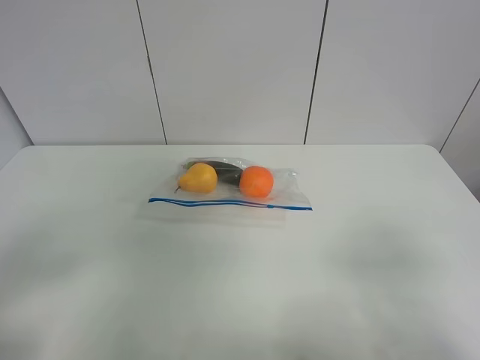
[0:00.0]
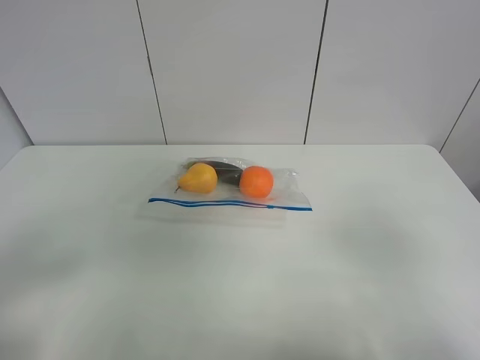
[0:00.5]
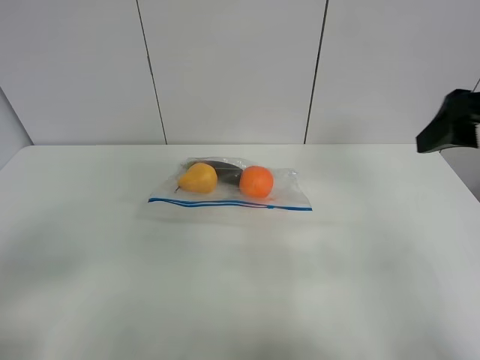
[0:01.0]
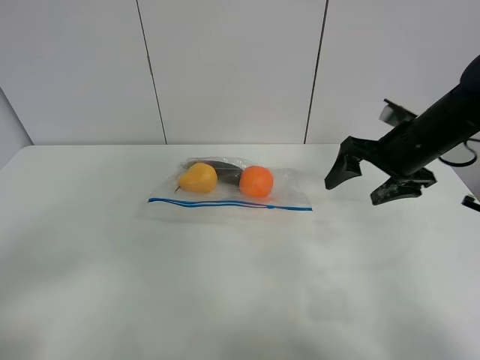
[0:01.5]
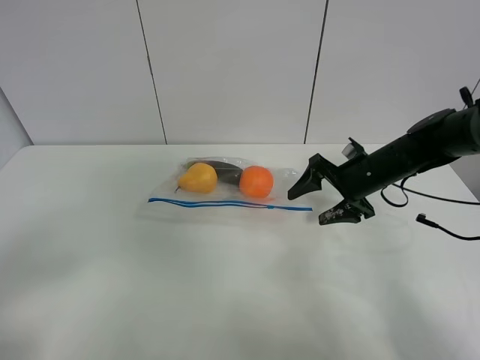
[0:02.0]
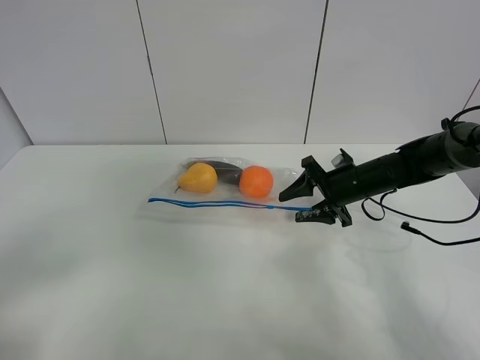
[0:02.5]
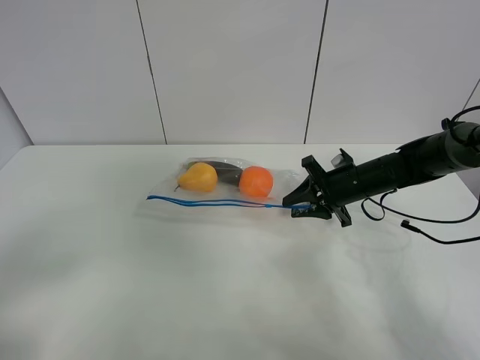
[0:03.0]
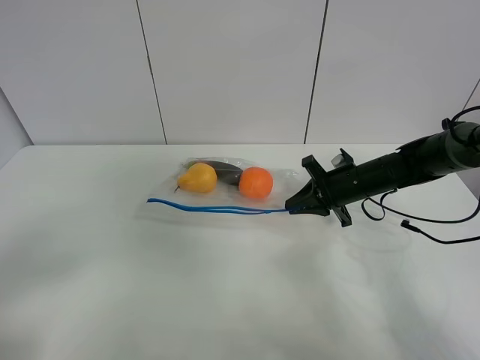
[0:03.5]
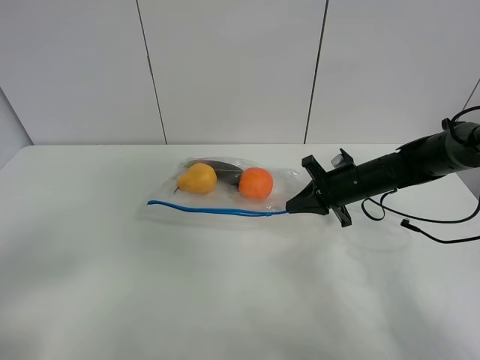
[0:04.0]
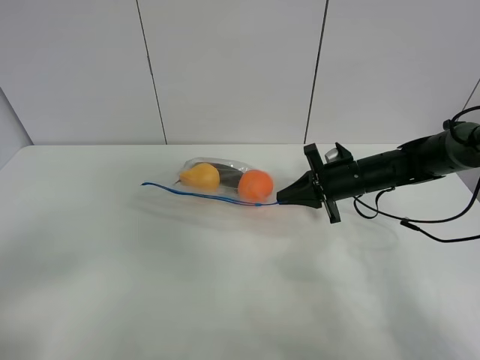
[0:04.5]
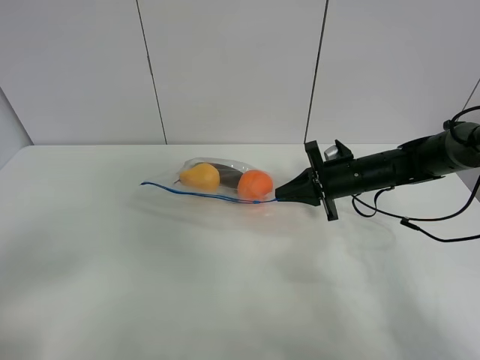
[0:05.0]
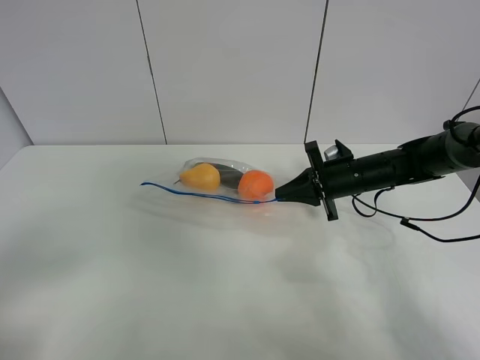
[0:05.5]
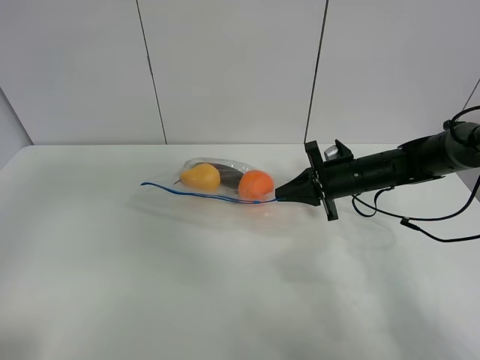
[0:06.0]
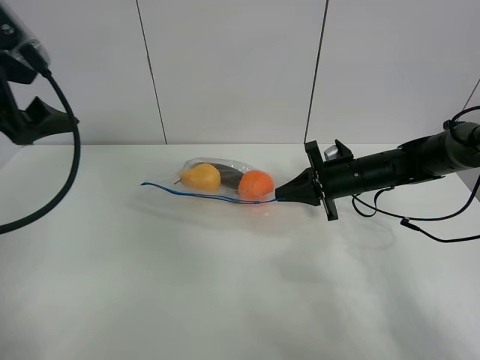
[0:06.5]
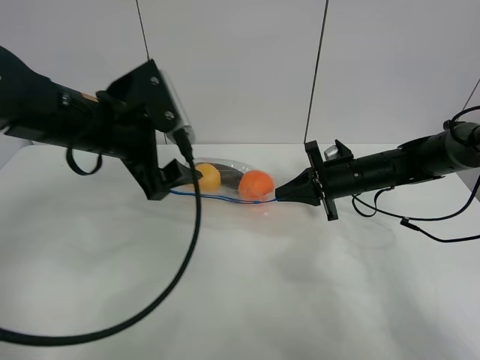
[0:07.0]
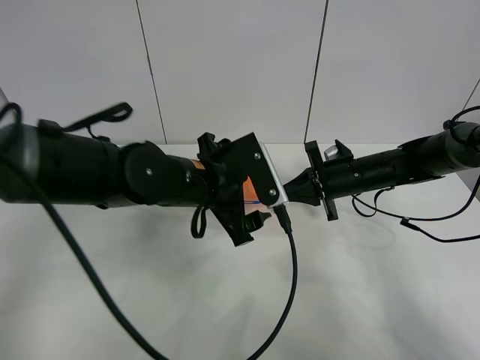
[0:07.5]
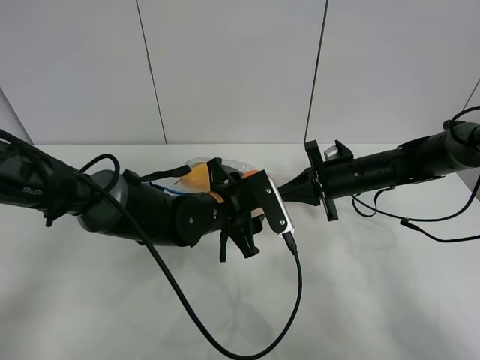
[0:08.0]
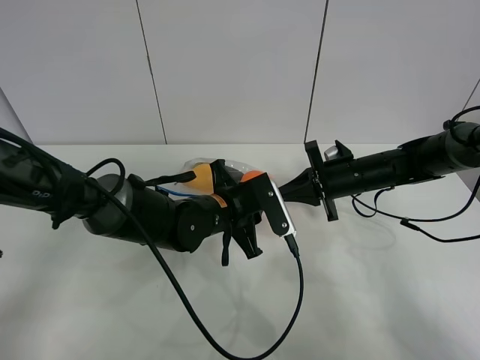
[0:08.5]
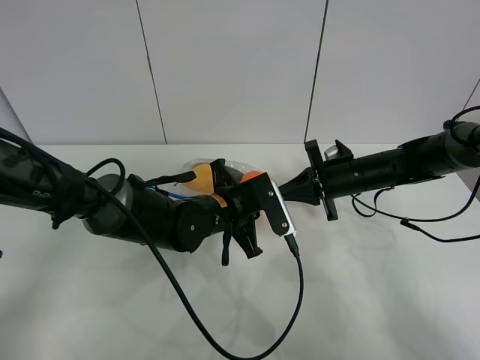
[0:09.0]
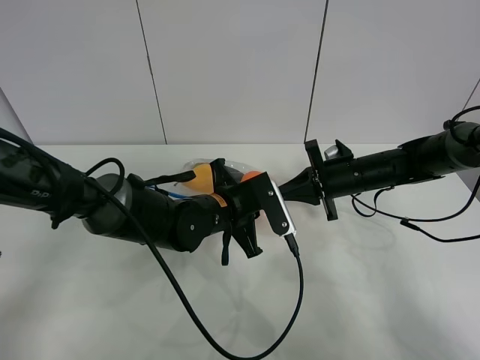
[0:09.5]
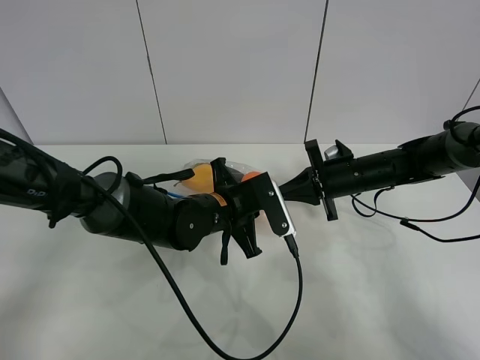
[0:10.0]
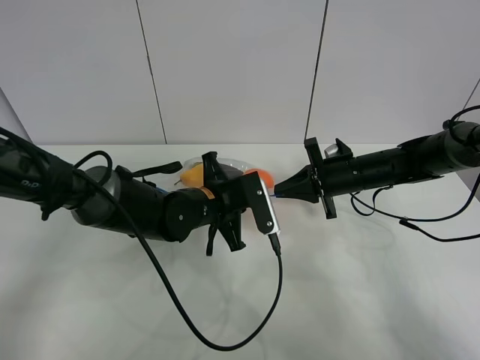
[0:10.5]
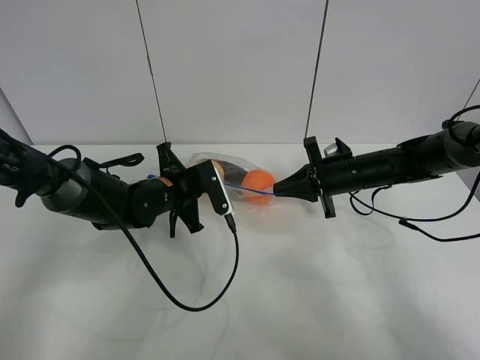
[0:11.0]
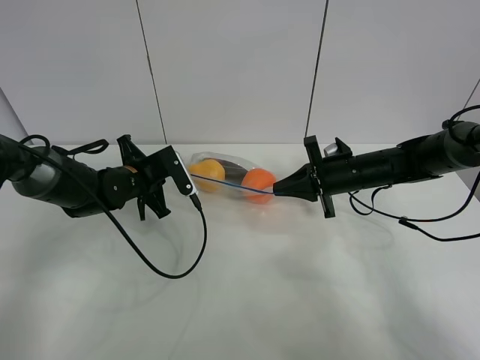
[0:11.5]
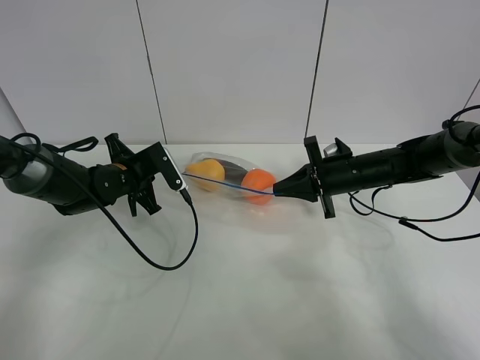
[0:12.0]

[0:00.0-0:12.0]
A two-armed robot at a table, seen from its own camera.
Step, 0:00.0 to 0:03.5: Grasp the fruit bag with right gripper.
Step, 0:04.0 to 0:04.5: Lift the fruit bag with your right gripper.
0:00.0 to 0:02.0: The right gripper is displaced forward by roughly 35 cm.
0:02.0 to 0:04.0: The right gripper closes up.
0:04.0 to 0:06.0: The left gripper moves forward and upward, about 15 cm.
0:06.0 to 0:08.0: The left gripper goes about 40 cm to the right, downward and forward, and closes.
0:08.0 to 0:10.0: The left gripper closes up.
0:10.0 to 0:12.0: The left gripper travels to the left and forward by some 20 cm.

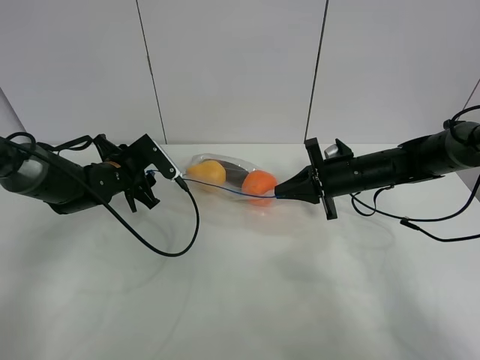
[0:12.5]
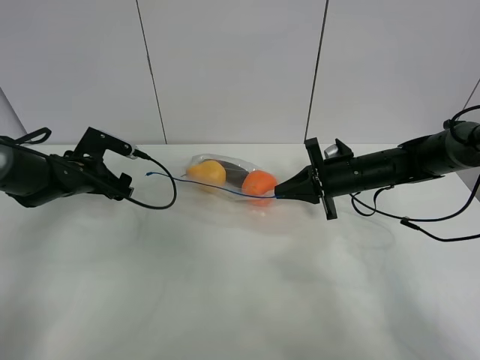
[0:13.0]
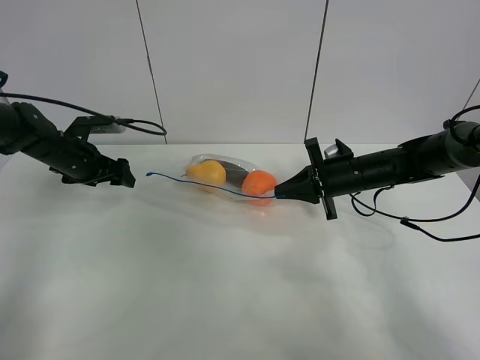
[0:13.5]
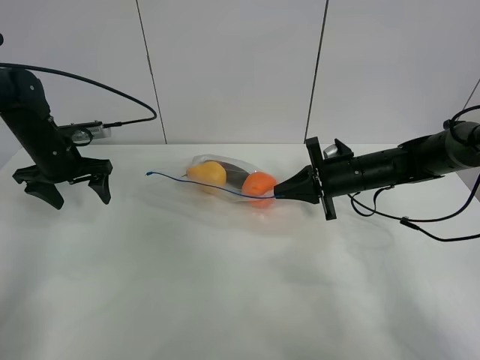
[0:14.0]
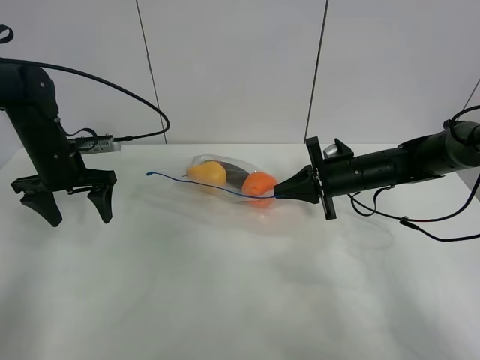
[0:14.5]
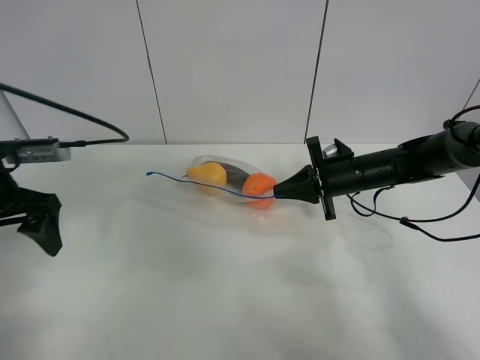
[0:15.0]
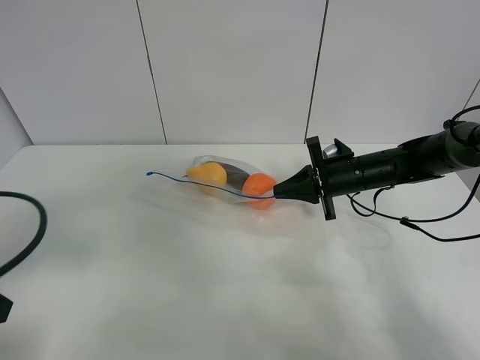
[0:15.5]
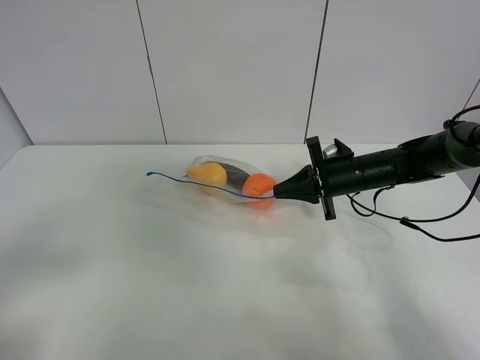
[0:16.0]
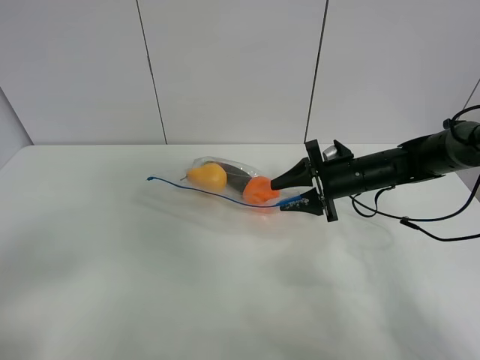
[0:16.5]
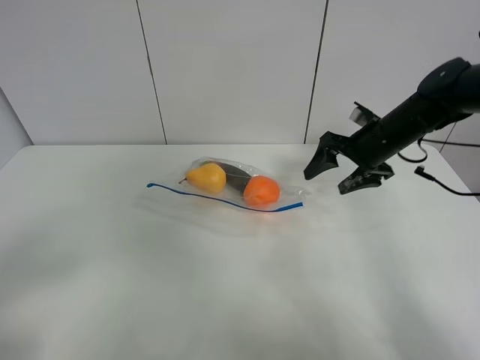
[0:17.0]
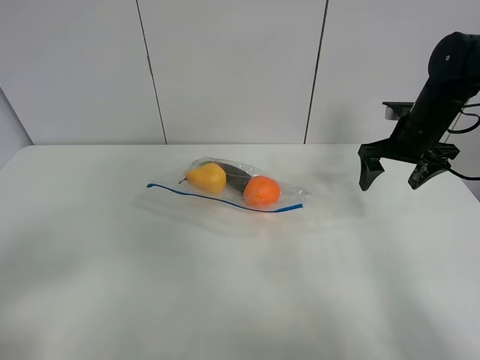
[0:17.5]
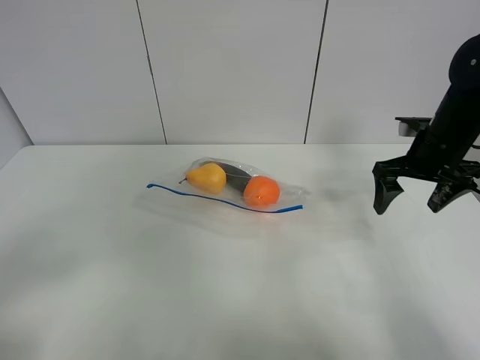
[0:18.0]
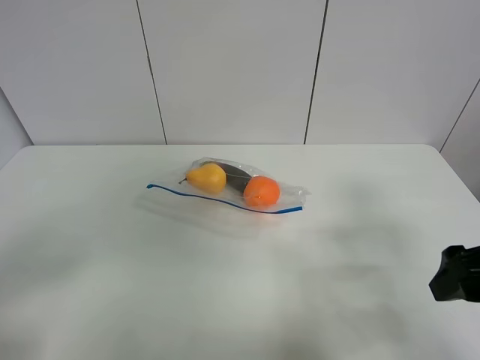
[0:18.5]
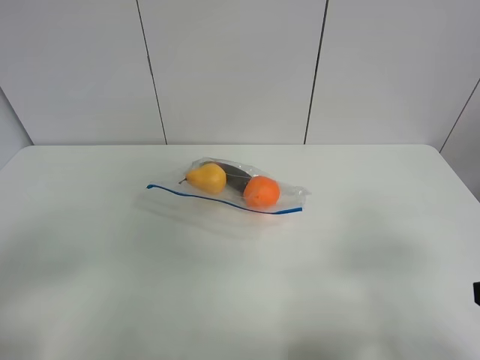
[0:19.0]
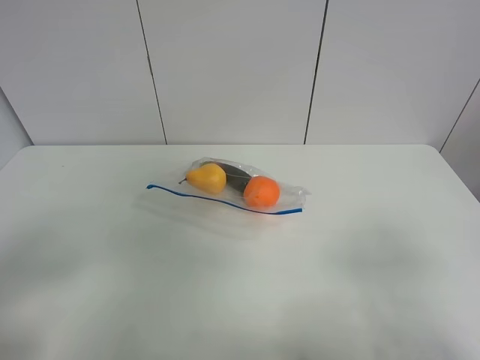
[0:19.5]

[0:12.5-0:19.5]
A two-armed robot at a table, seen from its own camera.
0:12.5 to 0:14.5: The left gripper moves to the left and upward, about 10 cm.
0:14.5 to 0:16.0: The left gripper shifts about 35 cm backward.
0:16.0 to 0:17.5: The right gripper is displaced to the right and upward by roughly 10 cm, and opens its fingers.
0:17.5 to 0:19.5: The right gripper moves backward, some 40 cm.

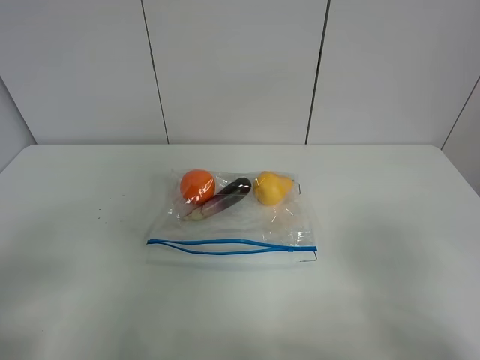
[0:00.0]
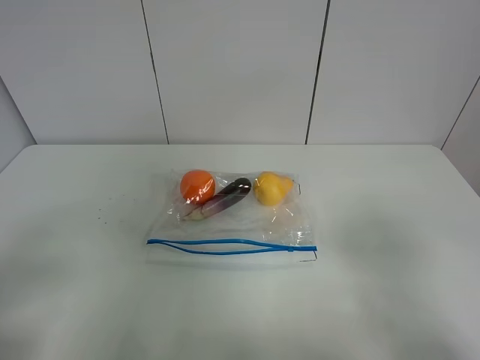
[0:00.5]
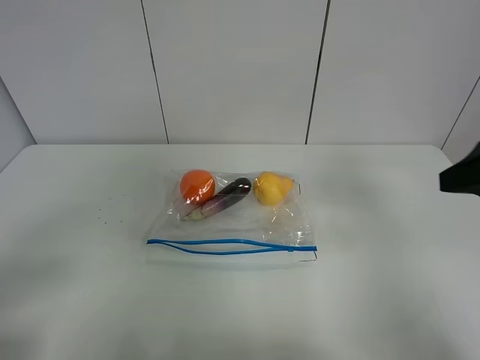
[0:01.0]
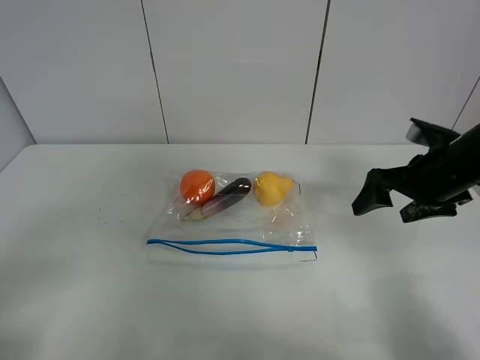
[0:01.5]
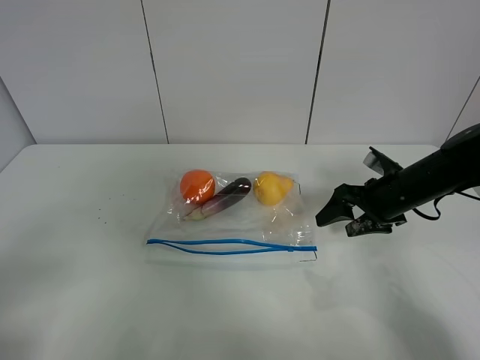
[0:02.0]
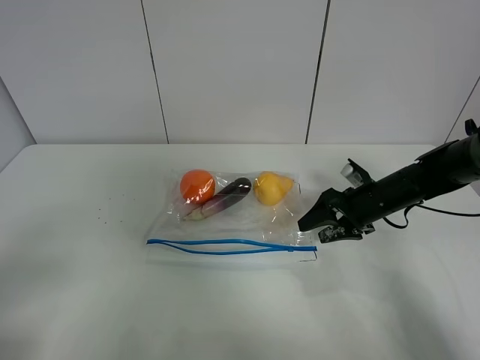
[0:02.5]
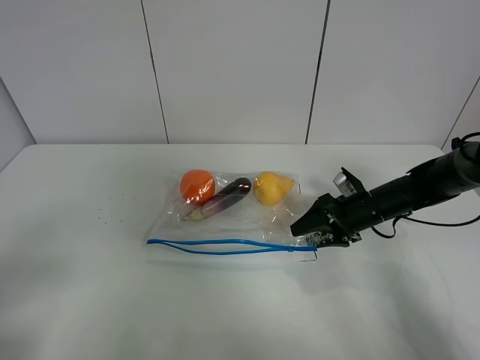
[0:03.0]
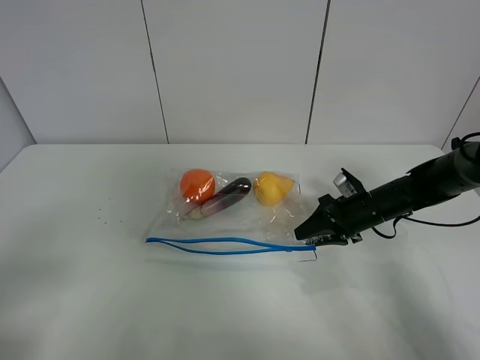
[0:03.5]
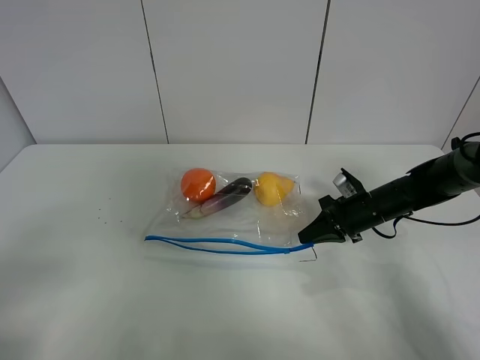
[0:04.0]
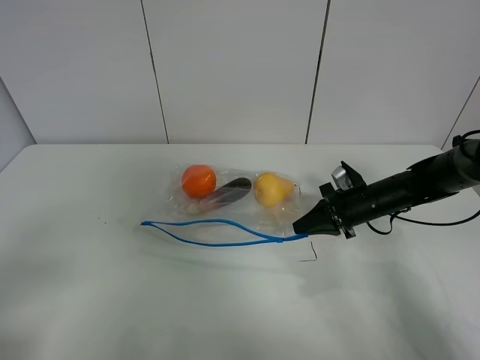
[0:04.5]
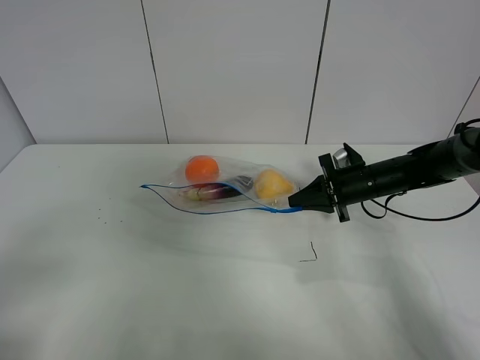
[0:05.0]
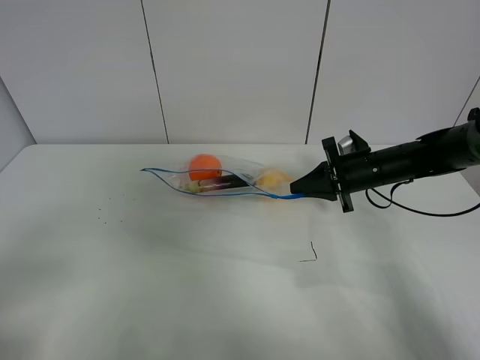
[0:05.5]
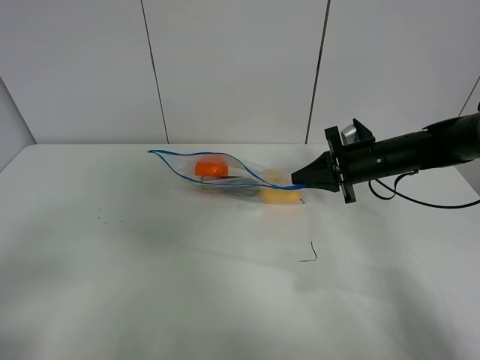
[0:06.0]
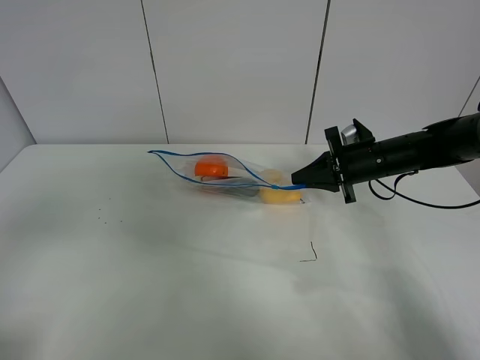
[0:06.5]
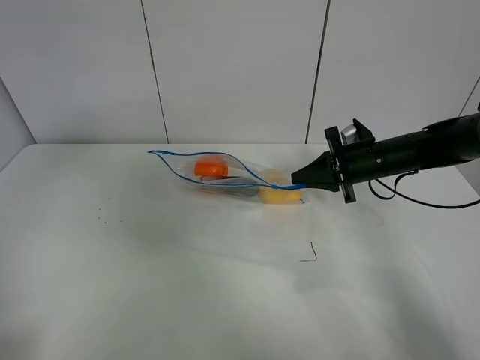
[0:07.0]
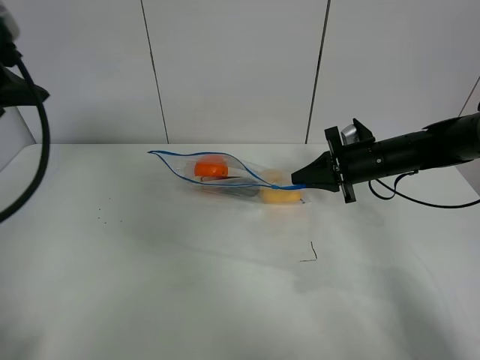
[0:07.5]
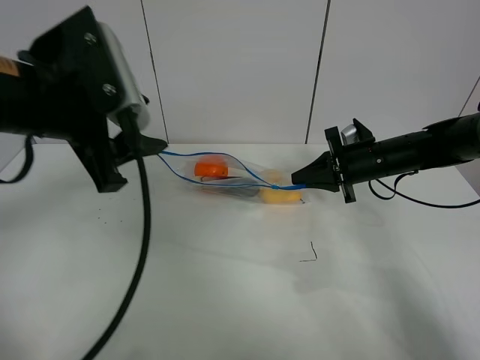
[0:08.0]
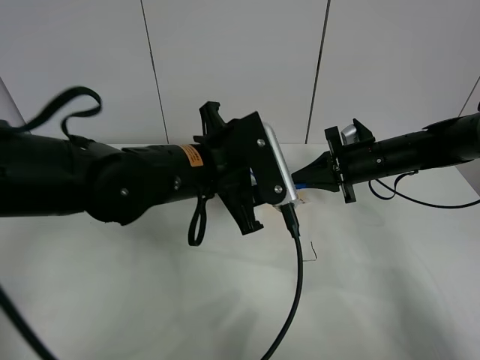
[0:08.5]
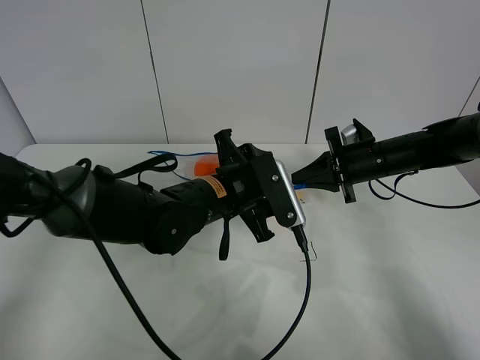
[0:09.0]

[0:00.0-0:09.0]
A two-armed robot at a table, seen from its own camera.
Step, 0:00.0 to 0:04.0: Grasp the fruit bag with right gripper.
Step, 0:04.5 to 0:06.0: Lift the fruit bag with your right gripper.
0:00.0 to 0:02.0: The right gripper is displaced forward and downward by some 35 cm.
0:02.0 to 0:04.5: The right gripper ends up some 5 cm from where it was, and closes up.
0:04.5 to 0:07.0: The right gripper heads upward, covering some 5 cm; the left gripper goes roughly 25 cm forward and upward.
0:07.0 to 0:09.0: The left gripper shifts approximately 40 cm to the right and downward.
